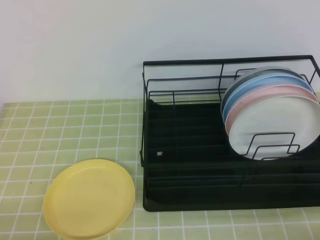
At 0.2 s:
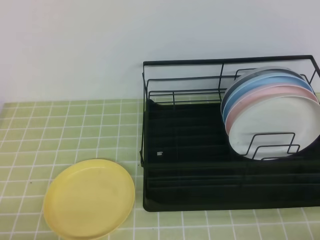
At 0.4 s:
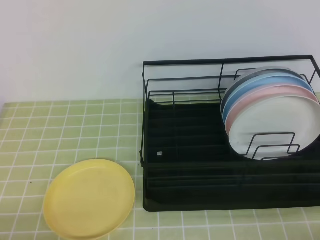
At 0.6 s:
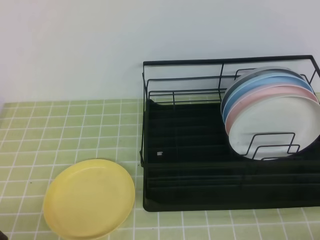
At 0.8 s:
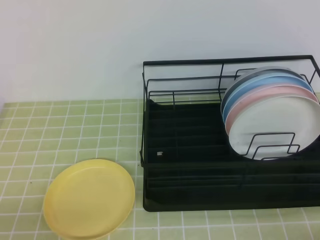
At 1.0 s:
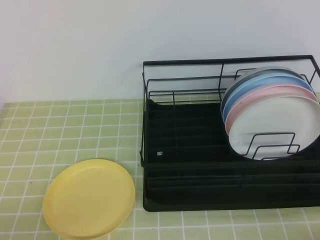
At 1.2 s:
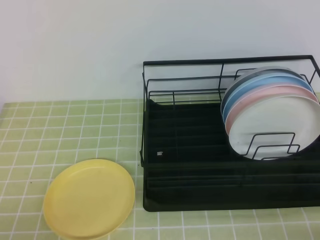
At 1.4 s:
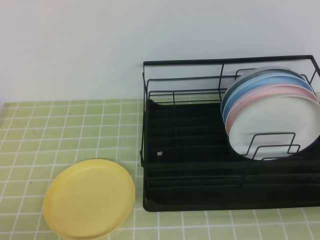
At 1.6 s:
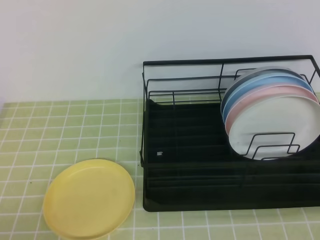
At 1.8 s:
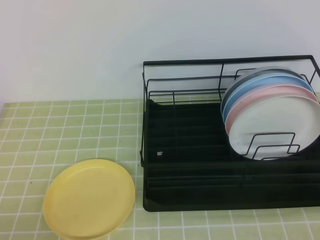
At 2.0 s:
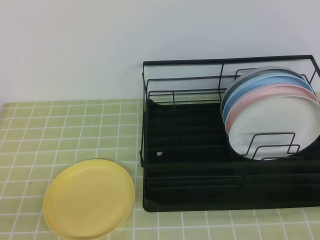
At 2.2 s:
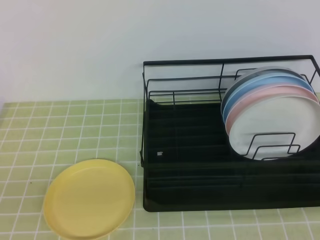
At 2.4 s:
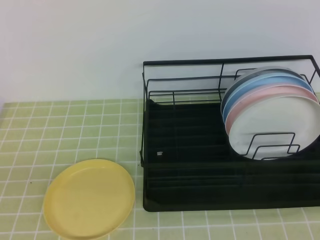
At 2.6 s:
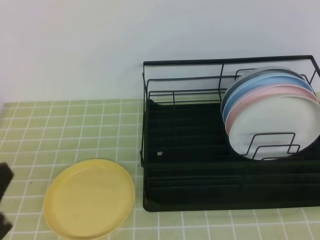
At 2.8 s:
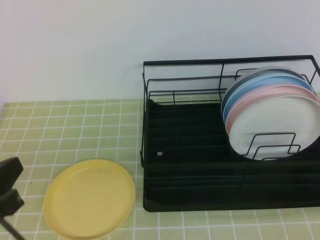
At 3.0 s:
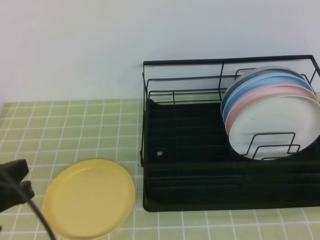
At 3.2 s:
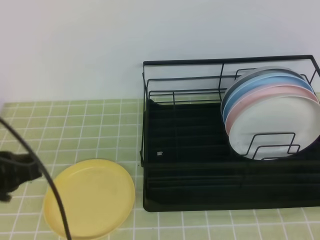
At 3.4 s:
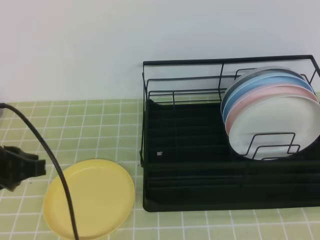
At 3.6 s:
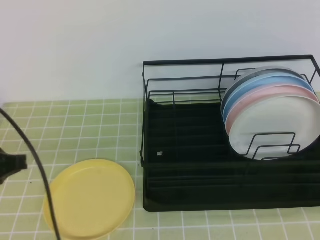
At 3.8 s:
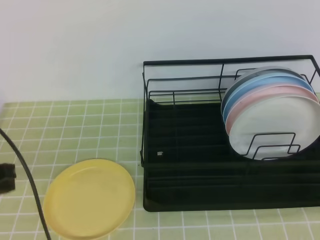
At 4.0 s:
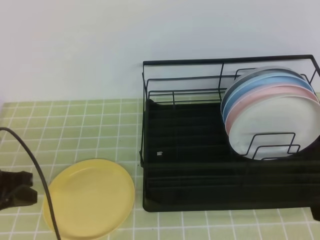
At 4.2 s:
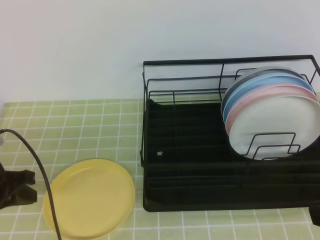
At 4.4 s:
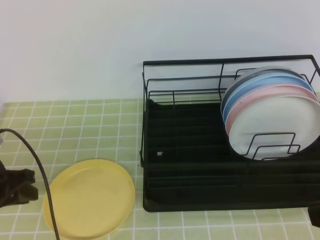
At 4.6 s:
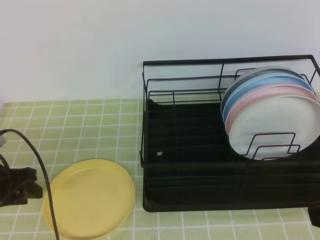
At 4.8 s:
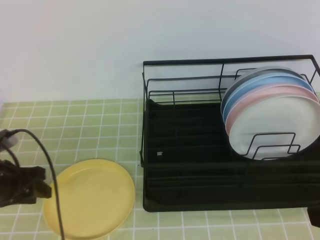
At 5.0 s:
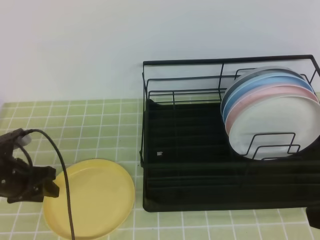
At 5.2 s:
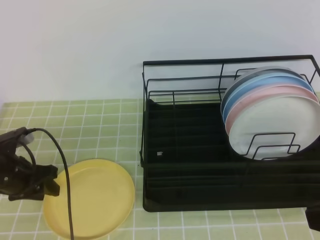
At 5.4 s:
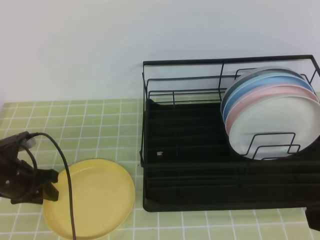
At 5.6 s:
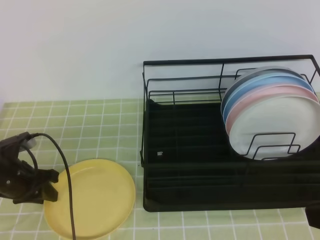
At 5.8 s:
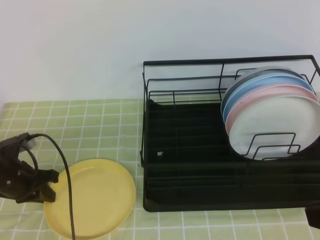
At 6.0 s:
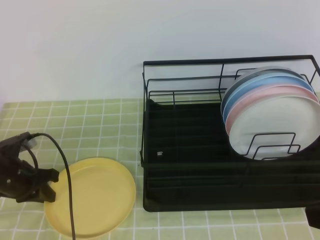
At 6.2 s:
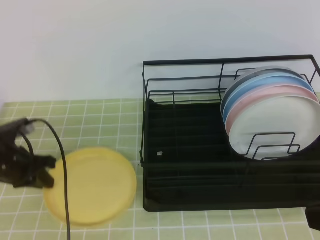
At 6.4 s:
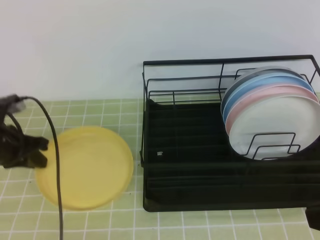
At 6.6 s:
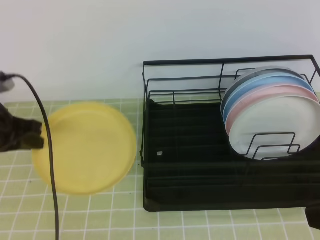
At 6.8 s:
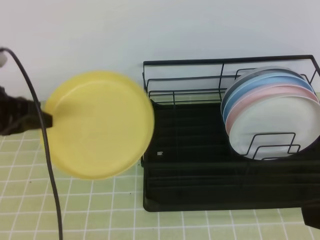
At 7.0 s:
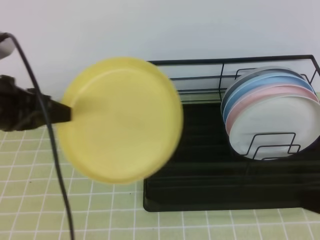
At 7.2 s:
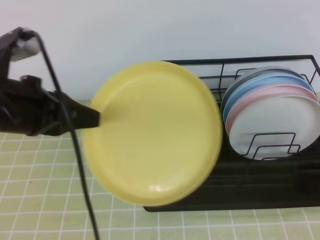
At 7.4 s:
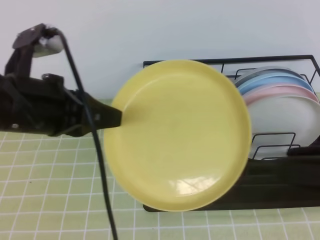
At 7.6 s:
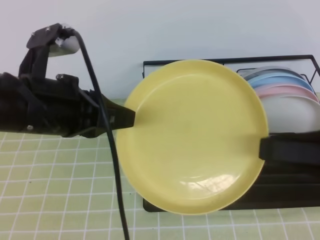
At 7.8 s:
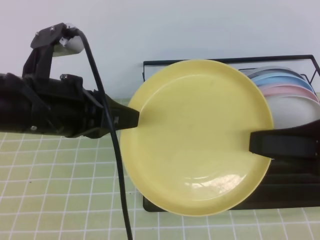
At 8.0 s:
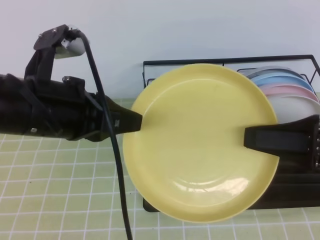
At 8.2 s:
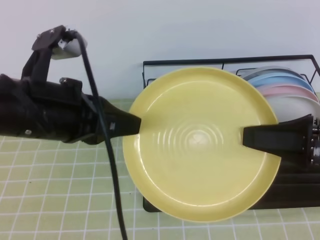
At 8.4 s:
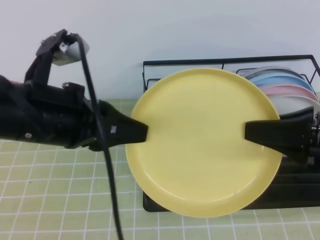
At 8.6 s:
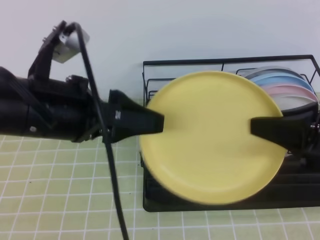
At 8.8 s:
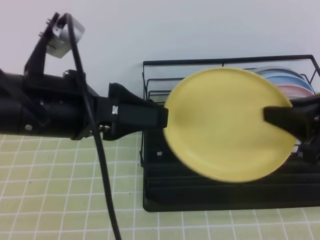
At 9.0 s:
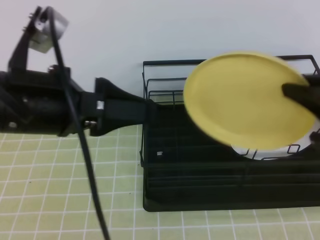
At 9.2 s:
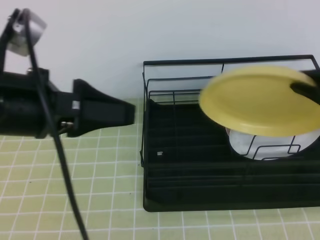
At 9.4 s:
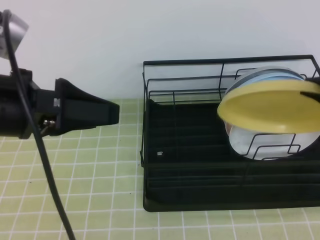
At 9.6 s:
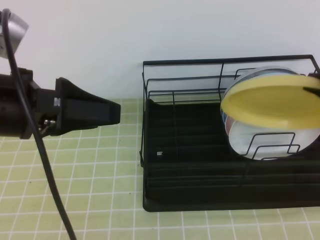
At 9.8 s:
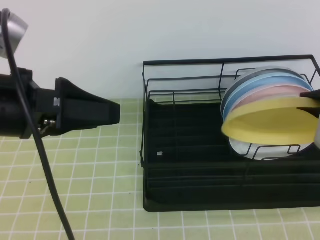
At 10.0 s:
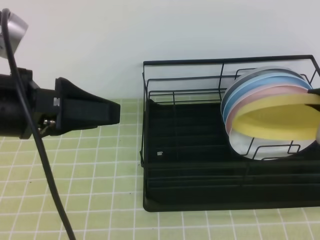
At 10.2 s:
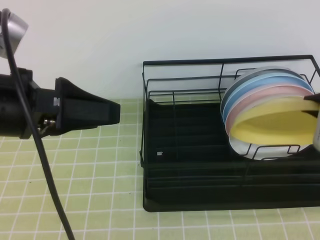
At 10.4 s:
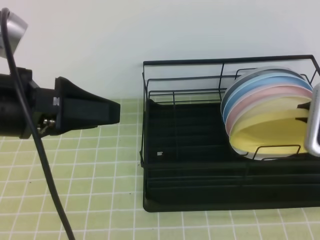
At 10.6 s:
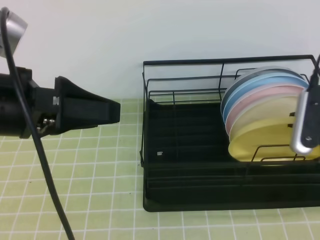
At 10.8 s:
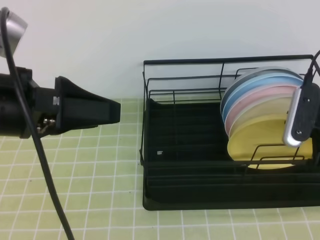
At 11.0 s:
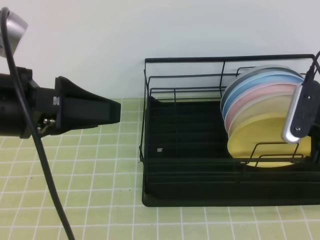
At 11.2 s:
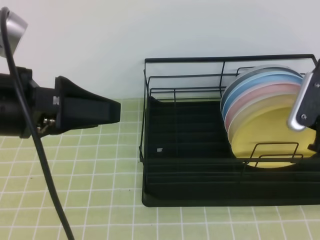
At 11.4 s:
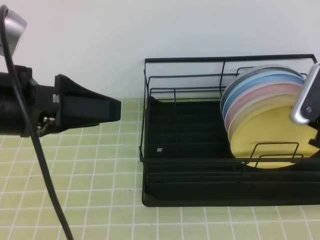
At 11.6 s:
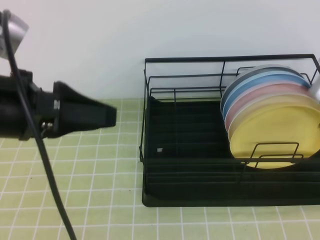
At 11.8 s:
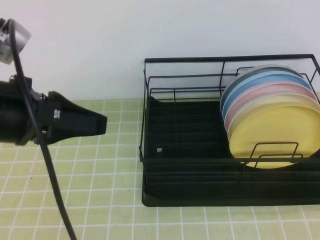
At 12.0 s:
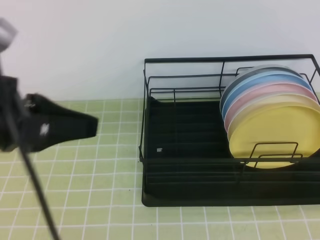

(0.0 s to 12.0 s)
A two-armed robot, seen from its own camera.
1.6 s - 3.0 s: The left gripper moves forward and upward, some 10 cm.
3.0 s - 4.4 s: The left gripper shifts about 15 cm forward, downward and to the left.
4.4 s - 6.0 s: The left gripper goes some 5 cm forward.
6.0 s - 7.6 s: The left gripper is displaced upward, to the right and backward by roughly 25 cm; the right gripper opens.
7.6 s - 9.0 s: The right gripper is displaced forward by about 5 cm, and closes its fingers. Meanwhile the left gripper opens up.
10.4 s - 12.0 s: The left gripper closes; the right gripper is displaced backward and upward by roughly 15 cm, and opens, then closes once more.

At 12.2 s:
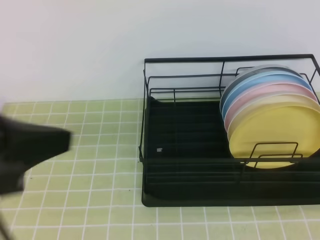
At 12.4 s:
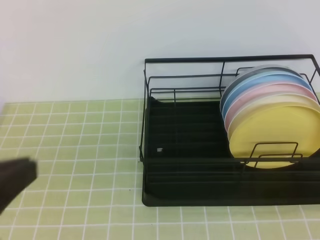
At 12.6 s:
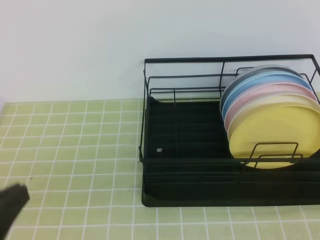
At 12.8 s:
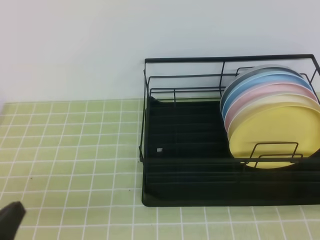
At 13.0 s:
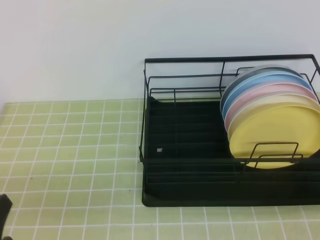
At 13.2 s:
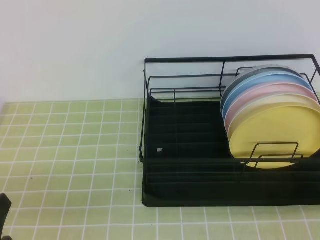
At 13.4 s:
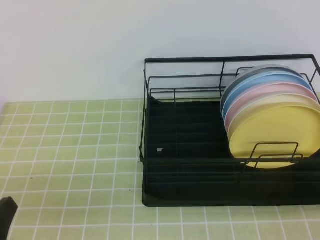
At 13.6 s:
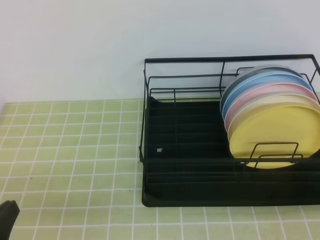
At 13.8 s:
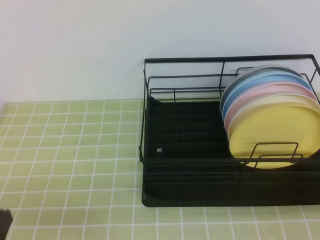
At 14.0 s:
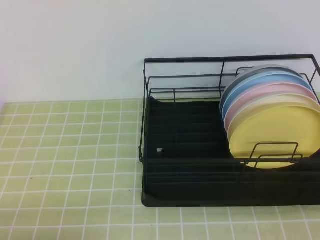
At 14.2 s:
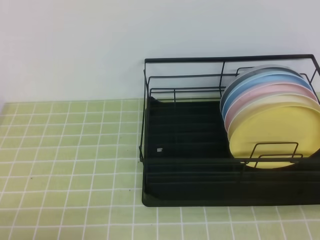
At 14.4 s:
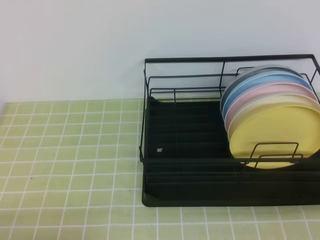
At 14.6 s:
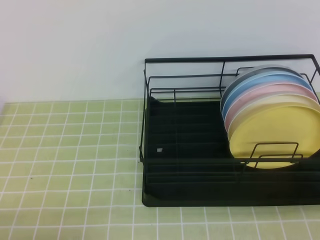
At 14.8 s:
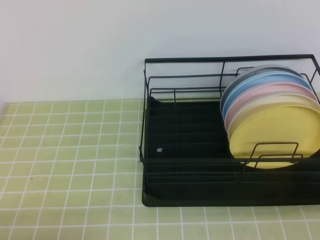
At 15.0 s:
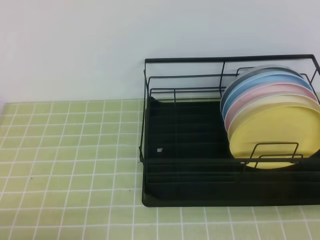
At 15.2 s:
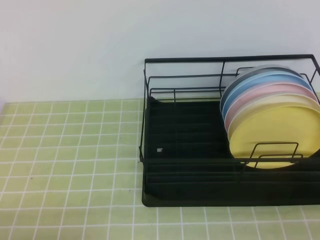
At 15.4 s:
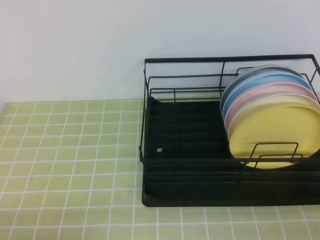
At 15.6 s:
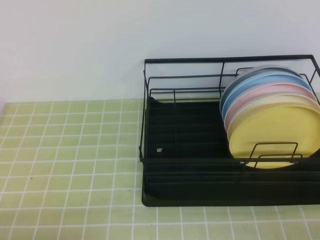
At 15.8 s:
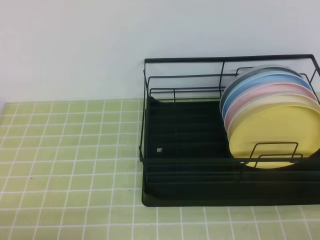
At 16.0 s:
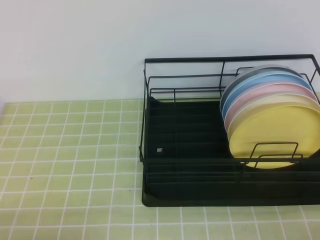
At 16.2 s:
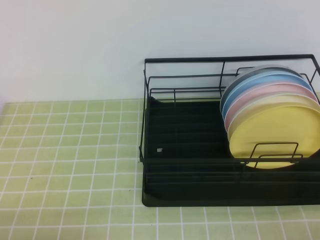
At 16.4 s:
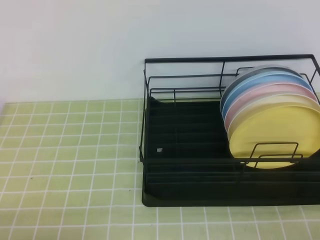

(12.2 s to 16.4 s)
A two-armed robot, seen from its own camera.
12.2 s - 13.6 s: The grippers both shift downward by approximately 15 cm.
13.6 s - 15.0 s: The left gripper moves some 5 cm.
